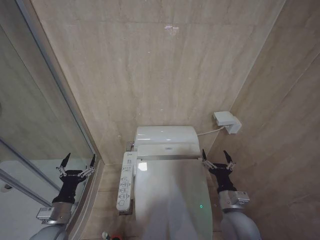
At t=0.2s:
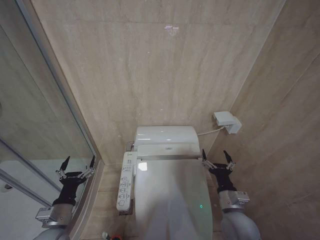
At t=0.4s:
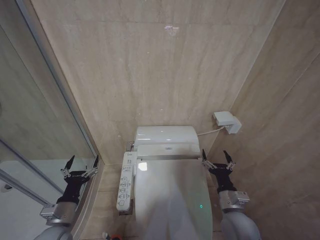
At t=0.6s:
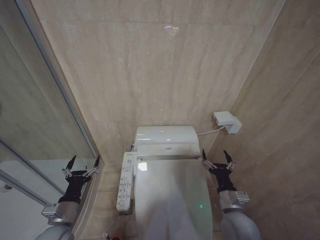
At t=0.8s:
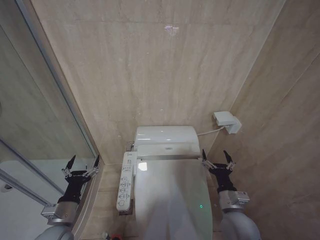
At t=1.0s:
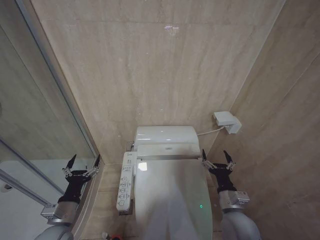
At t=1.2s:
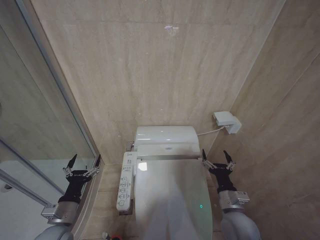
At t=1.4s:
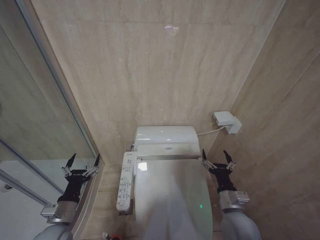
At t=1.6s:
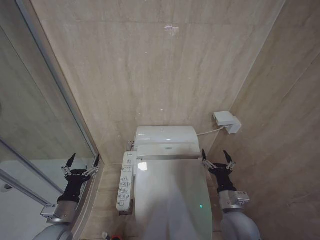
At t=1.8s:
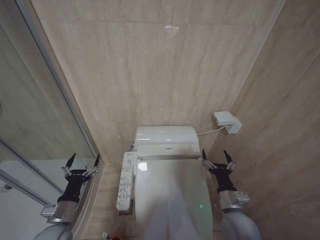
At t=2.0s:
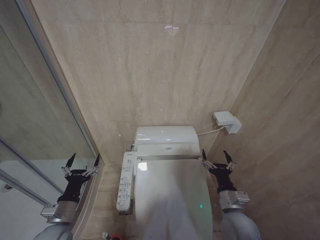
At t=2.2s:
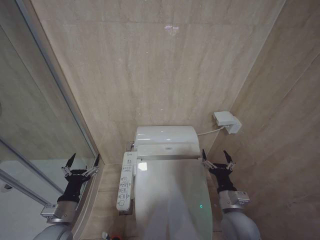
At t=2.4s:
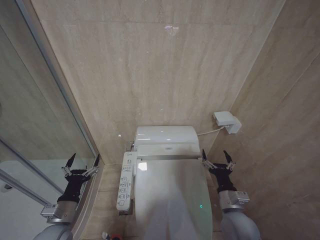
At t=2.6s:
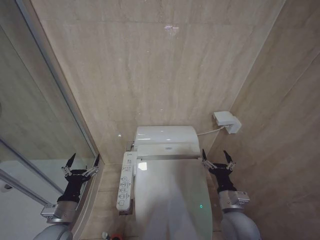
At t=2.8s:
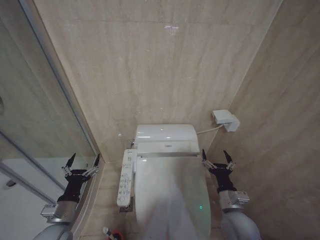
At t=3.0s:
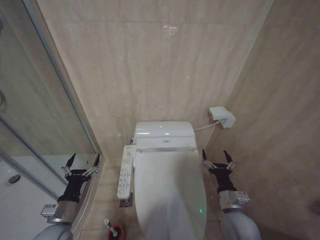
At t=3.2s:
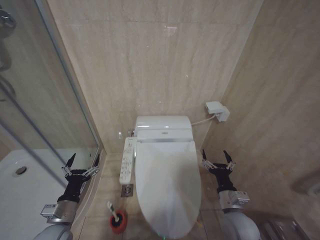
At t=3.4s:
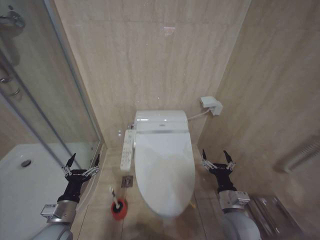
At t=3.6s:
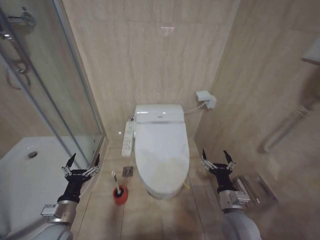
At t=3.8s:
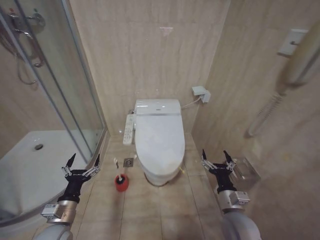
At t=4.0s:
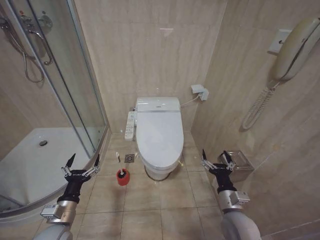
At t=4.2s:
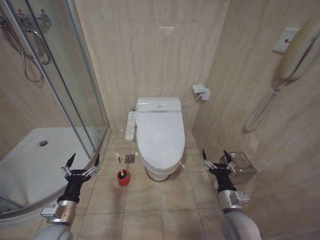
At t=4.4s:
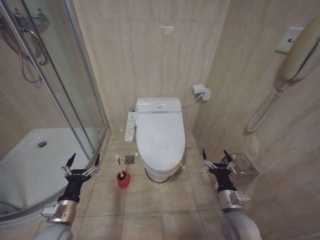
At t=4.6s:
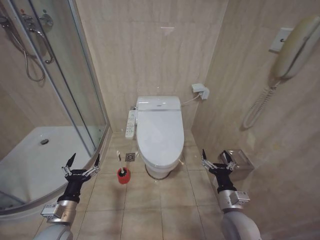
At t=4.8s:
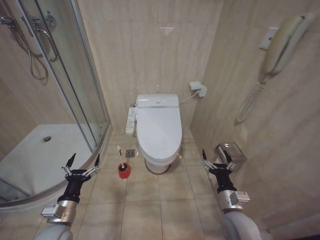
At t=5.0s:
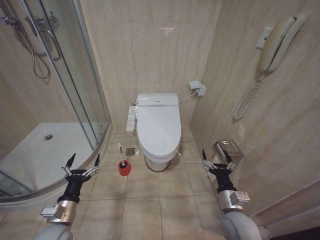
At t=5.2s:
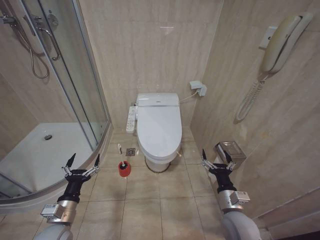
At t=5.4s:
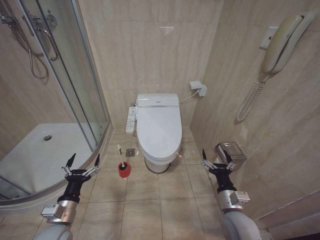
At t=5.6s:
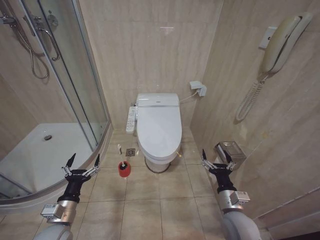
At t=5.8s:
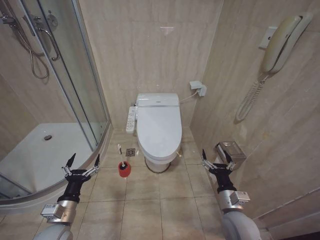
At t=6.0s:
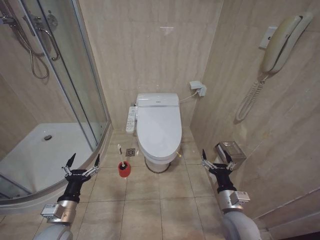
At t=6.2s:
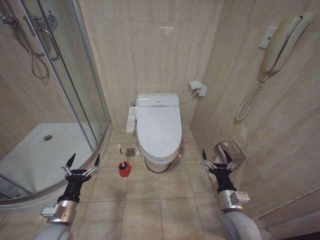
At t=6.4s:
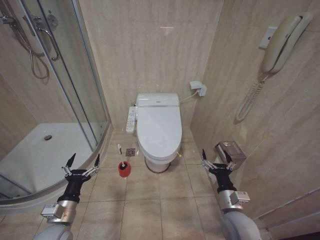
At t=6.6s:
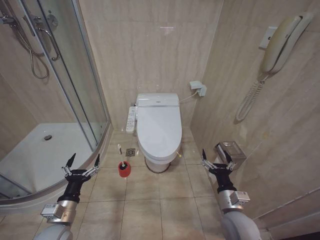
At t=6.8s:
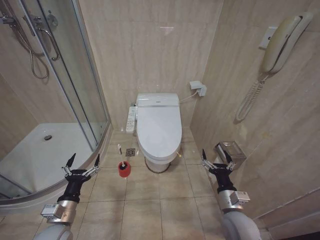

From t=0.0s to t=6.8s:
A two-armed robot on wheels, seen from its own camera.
Task of the whole recording: Open the toilet lid, clean the toilet bowl with a toilet brush, close the toilet lid, and flush.
From t=0.0s to t=1.4s: The grippers stay close to where they were, moving slightly.
From t=1.4s to t=2.8s: The two grippers keep their place.
From t=4.0s to t=6.8s: The two grippers keep their place.
